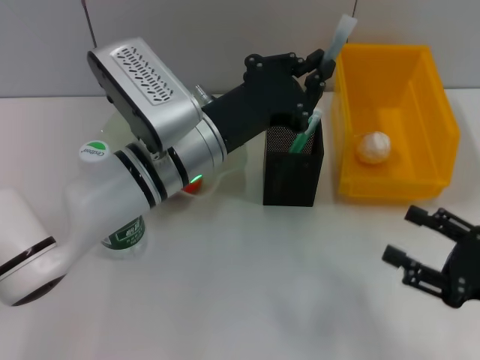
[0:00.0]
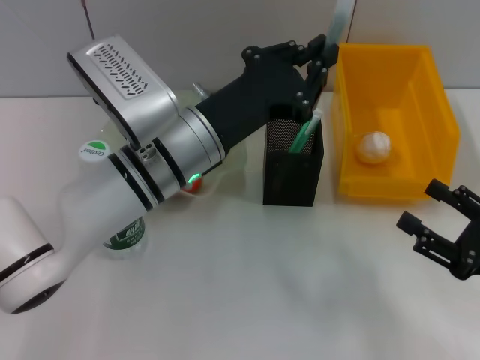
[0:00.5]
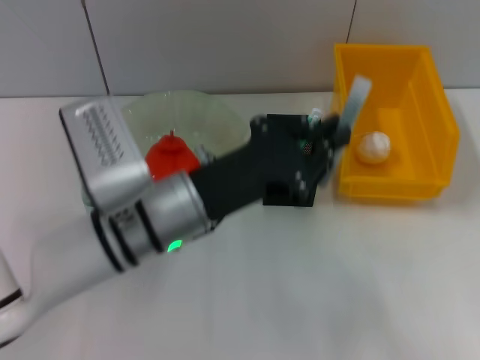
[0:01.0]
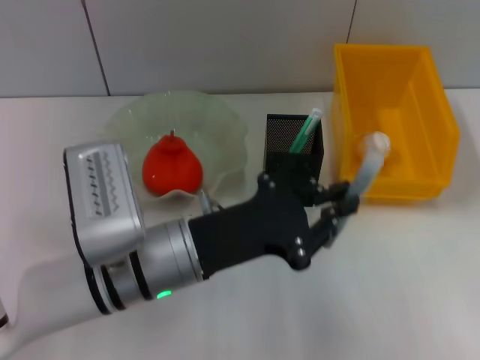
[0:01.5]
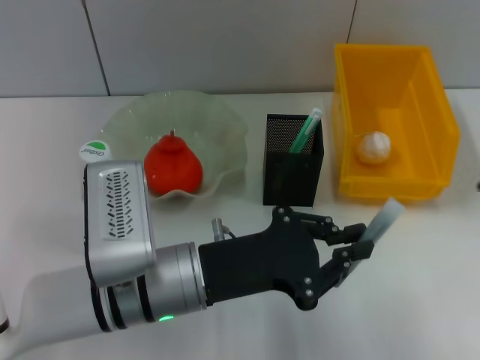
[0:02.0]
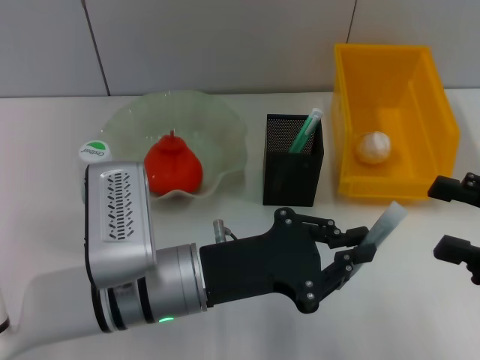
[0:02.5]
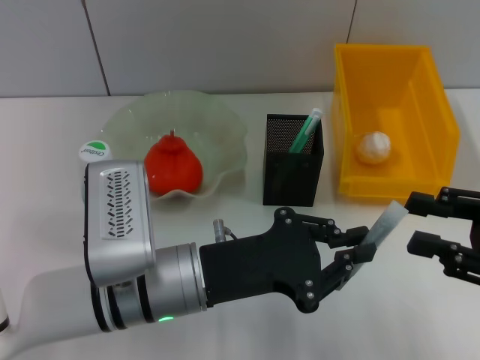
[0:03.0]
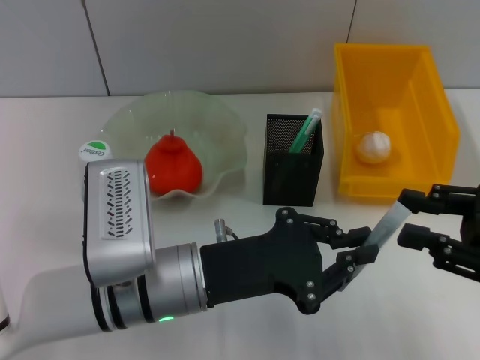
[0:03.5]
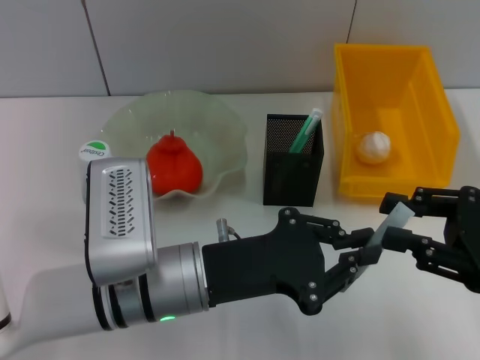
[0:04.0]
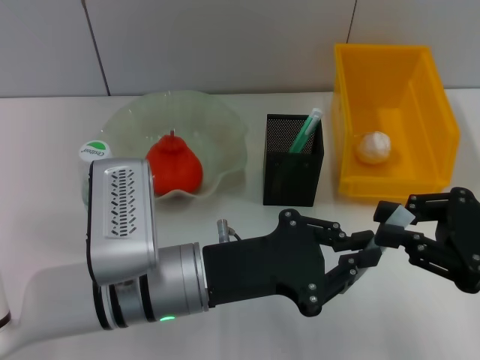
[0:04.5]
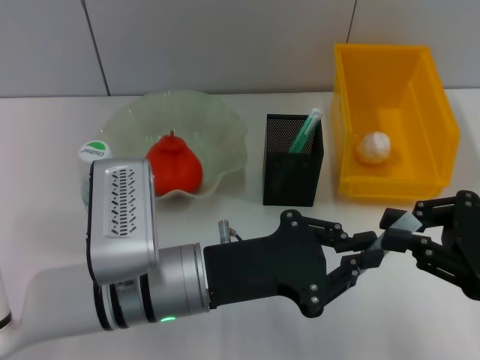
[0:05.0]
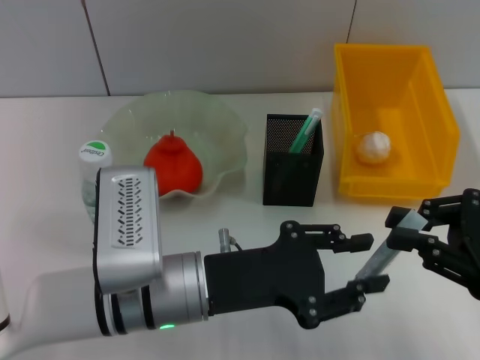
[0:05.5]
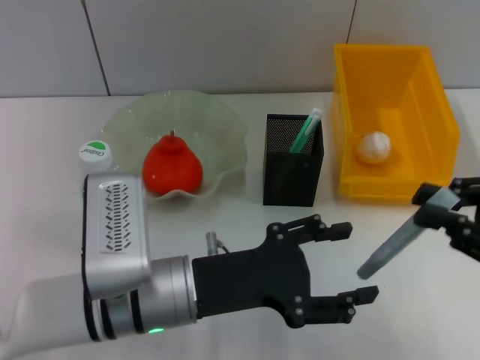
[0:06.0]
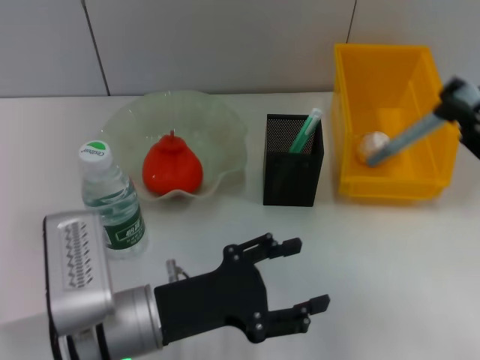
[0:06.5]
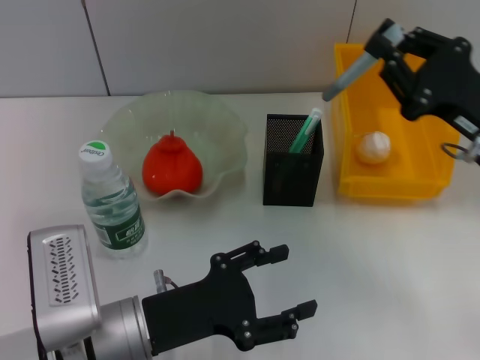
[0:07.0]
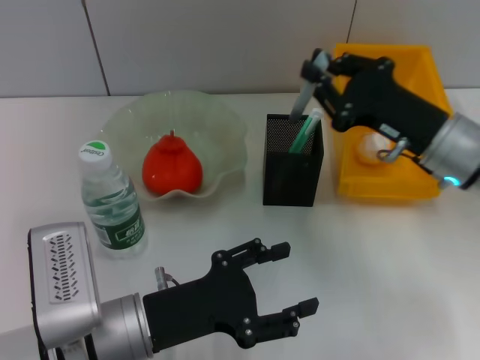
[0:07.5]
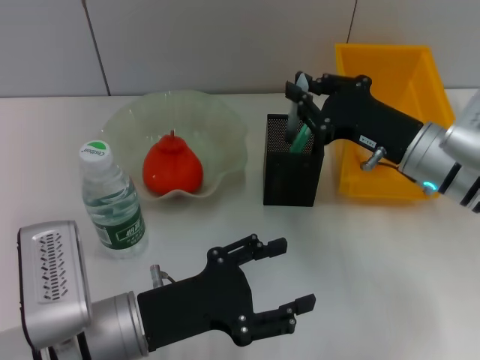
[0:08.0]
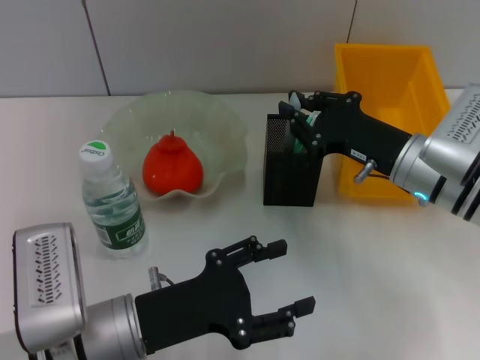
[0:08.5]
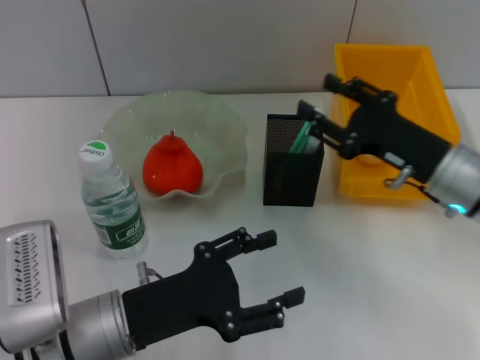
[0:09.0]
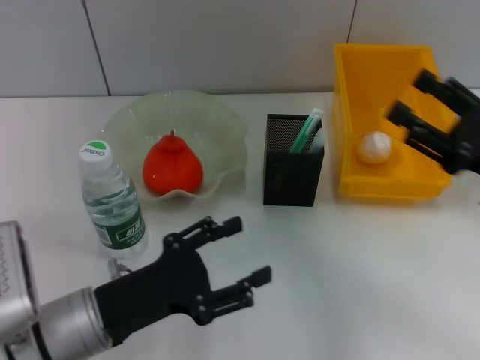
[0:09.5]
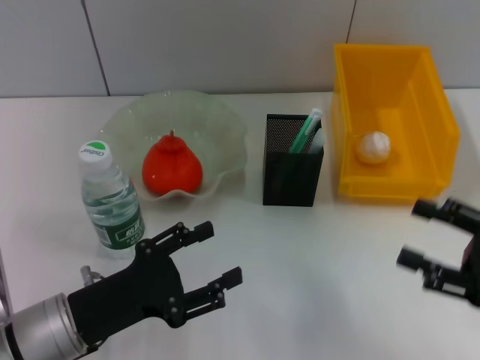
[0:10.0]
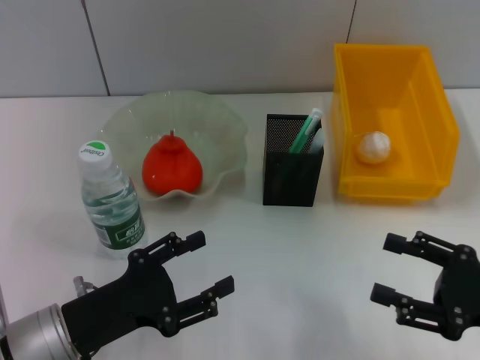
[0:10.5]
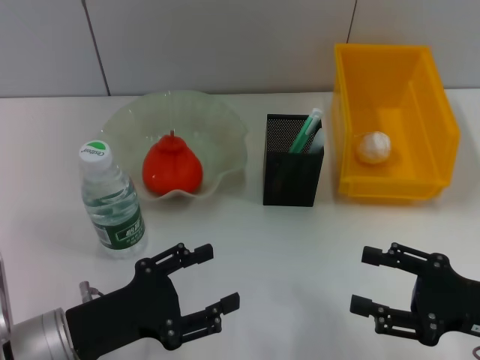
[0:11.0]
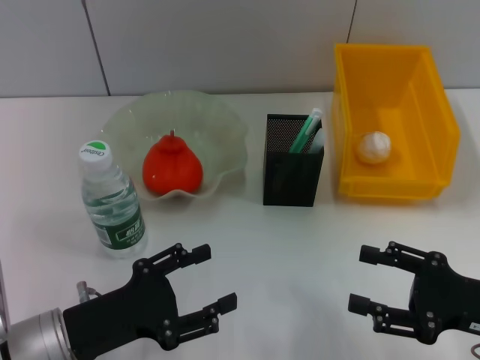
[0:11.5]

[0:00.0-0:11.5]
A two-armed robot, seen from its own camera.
Step, 0:00.0 to 0:05.5: Pass the gray glue from the left hand to the right hand.
Step, 0:06.0 to 0:09.0: Place the gray glue into the pen holder with the right hand.
0:00.0 to 0:02.0: The left gripper travels backward by roughly 10 cm. Meanwhile the right gripper is displaced upward by some 10 cm.
0:02.0 to 0:04.0: The right gripper is displaced to the left by approximately 5 cm, and closes up.
0:04.0 to 0:06.0: The left gripper opens.
0:06.0 to 0:07.5: The right gripper shifts approximately 15 cm forward and to the left; the left gripper ends up roughly 5 cm from where it was.
0:07.5 to 0:09.5: The right gripper goes about 10 cm to the right and backward, and opens.
0:09.5 to 0:11.5: The right gripper is displaced backward and downward by roughly 10 cm.

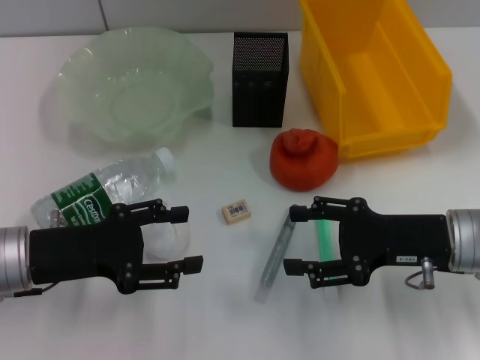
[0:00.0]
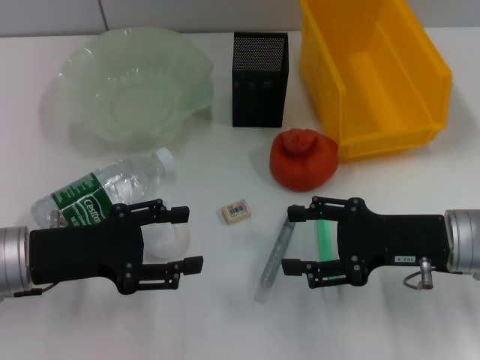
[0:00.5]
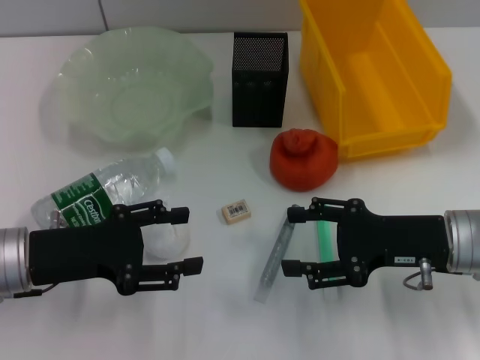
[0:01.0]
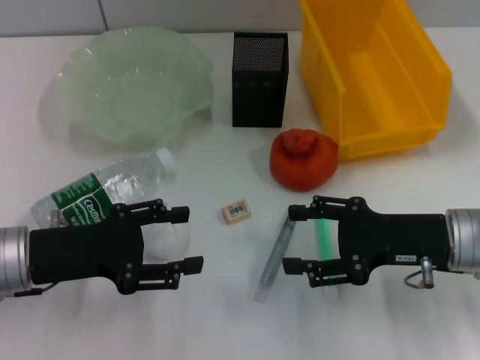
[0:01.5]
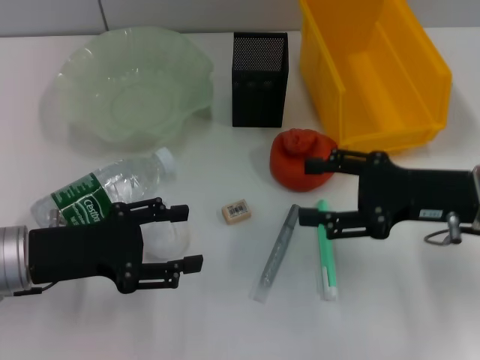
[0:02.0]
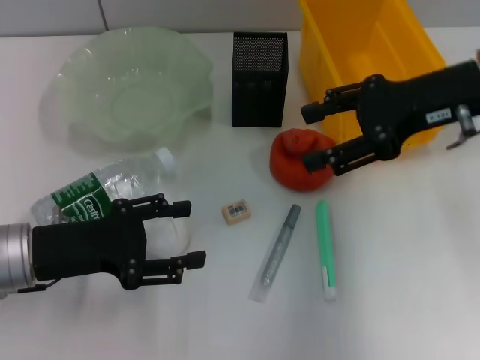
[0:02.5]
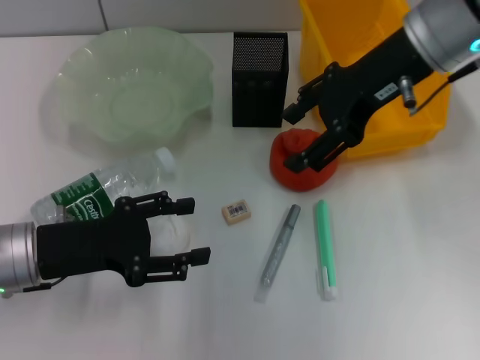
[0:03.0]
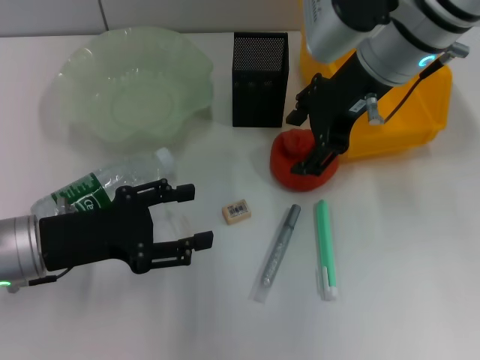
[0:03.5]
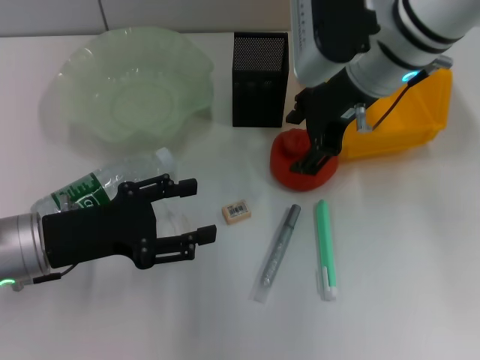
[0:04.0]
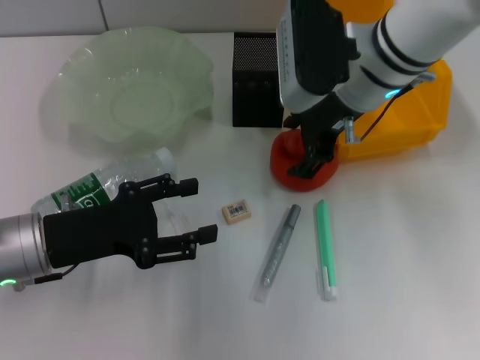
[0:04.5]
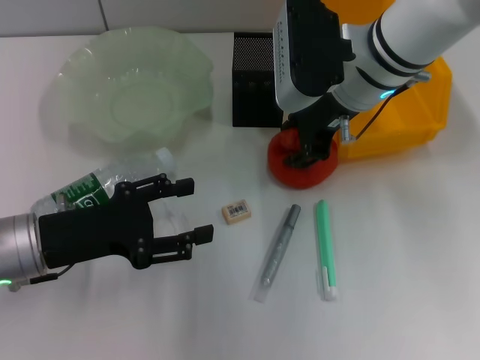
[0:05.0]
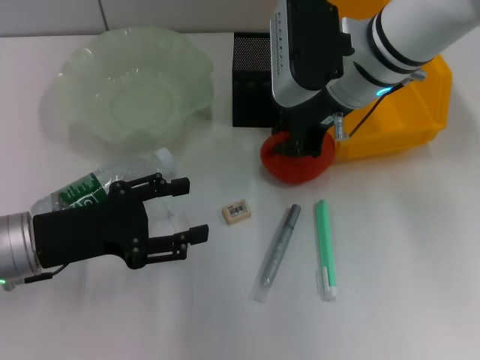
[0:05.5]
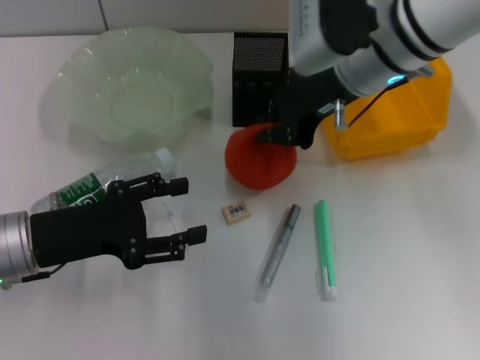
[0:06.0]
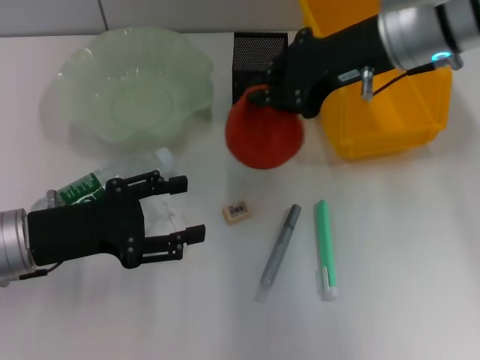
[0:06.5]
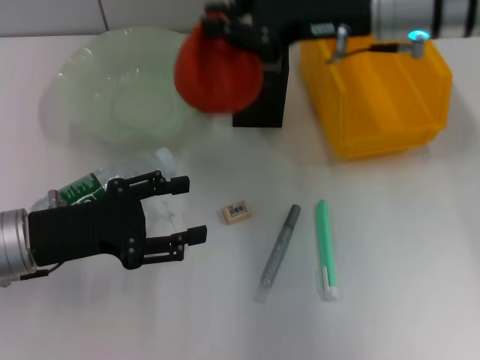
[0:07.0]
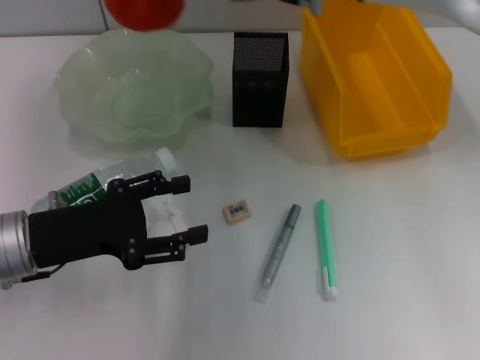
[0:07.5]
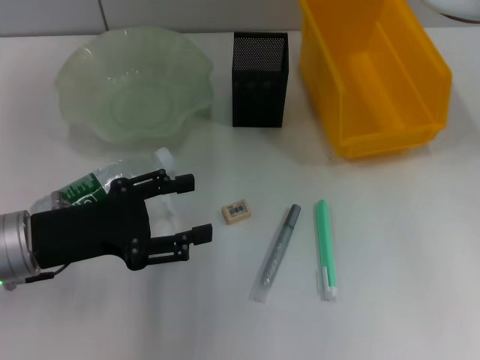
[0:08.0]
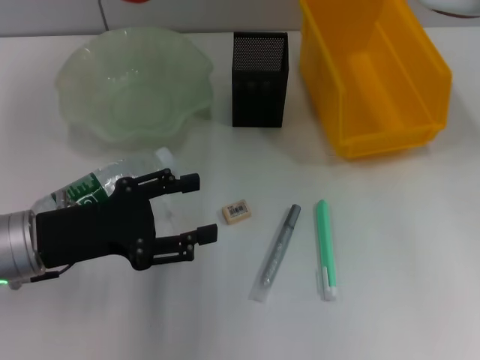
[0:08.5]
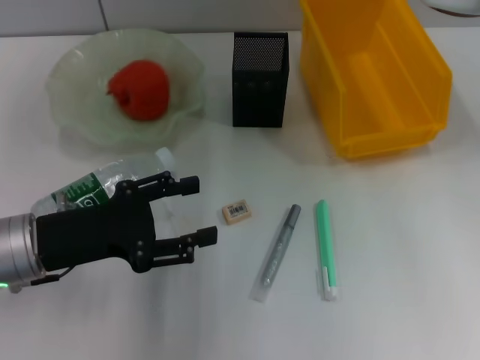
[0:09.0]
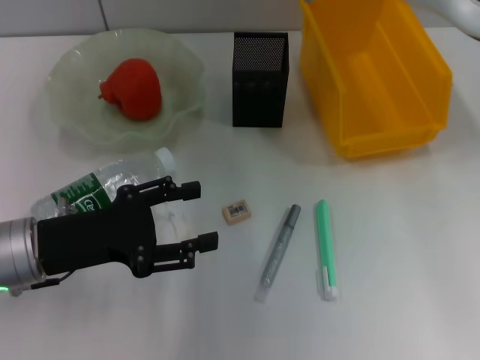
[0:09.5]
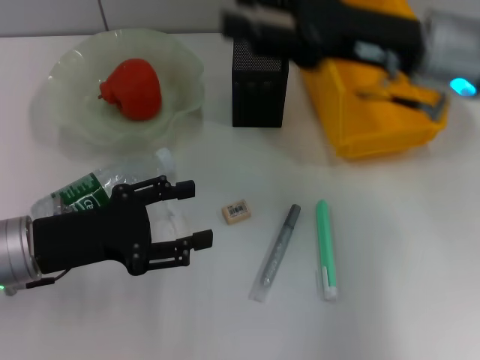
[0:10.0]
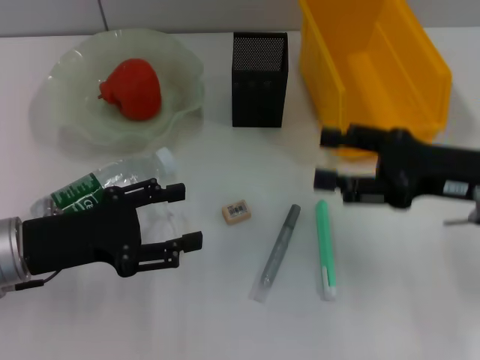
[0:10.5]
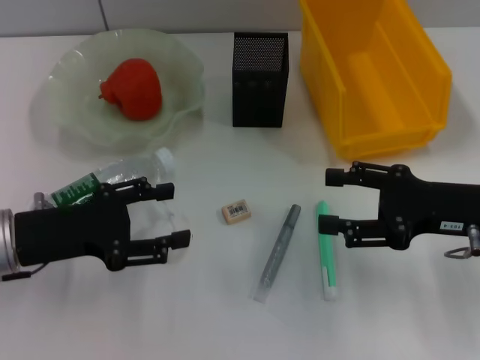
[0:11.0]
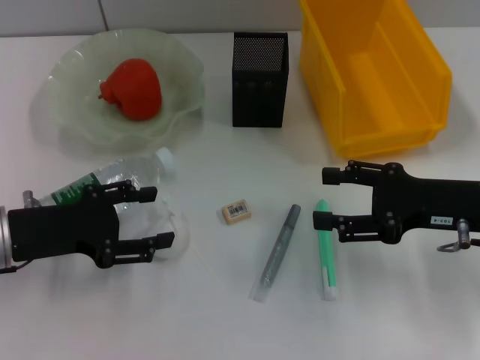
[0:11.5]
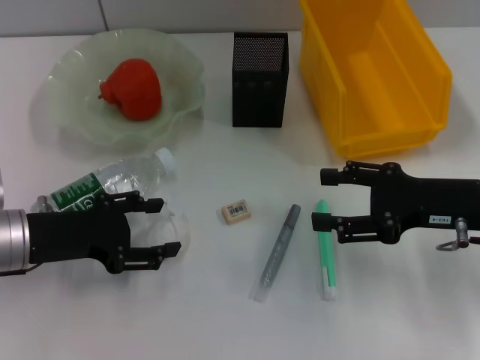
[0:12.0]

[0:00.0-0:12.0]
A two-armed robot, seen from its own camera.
Step, 0:00.0 to 0:05.0: Grab the orange with the right hand.
Step, 0:05.5 to 0:09.0: Place the orange into the fruit bowl with the right hand.
0:00.0 to 0:02.0: The right gripper ends up approximately 5 cm from where it was.
0:02.0 to 0:04.0: The right gripper heads to the left, forward and upward, covering some 20 cm.
0:04.0 to 0:06.0: The right gripper closes its fingers.
0:06.0 to 0:08.0: The right gripper is displaced to the left and forward by approximately 10 cm.
0:08.0 to 0:10.0: The right gripper moves to the right and backward, about 15 cm, and opens up.
0:10.0 to 0:12.0: The right gripper travels downward, to the right and backward by about 15 cm.

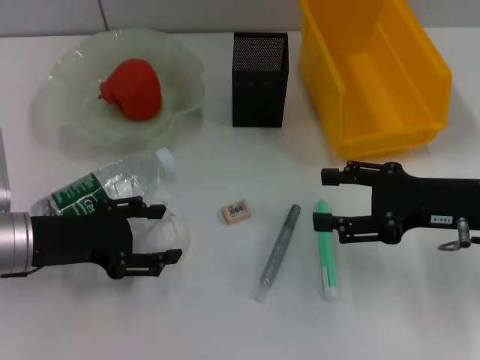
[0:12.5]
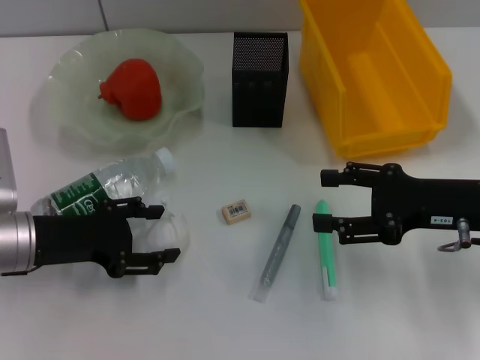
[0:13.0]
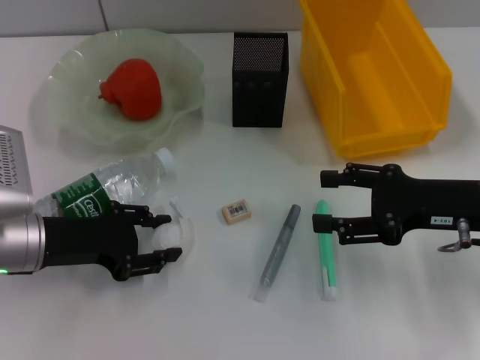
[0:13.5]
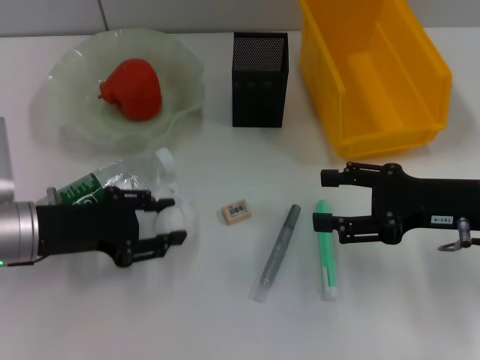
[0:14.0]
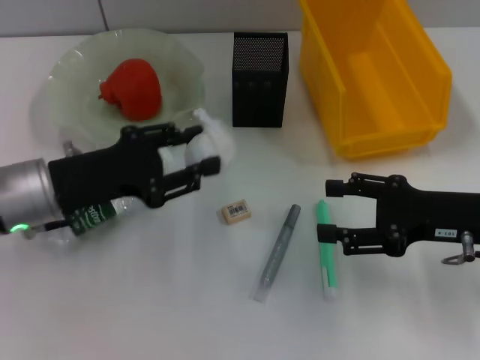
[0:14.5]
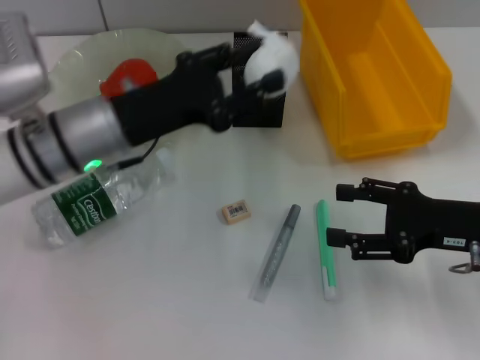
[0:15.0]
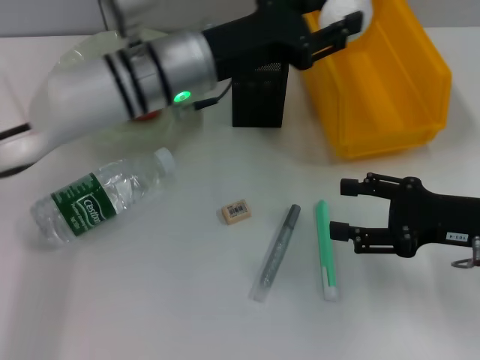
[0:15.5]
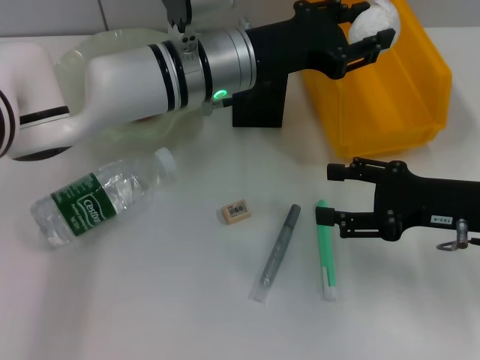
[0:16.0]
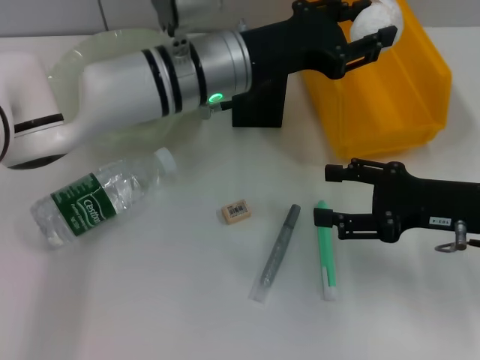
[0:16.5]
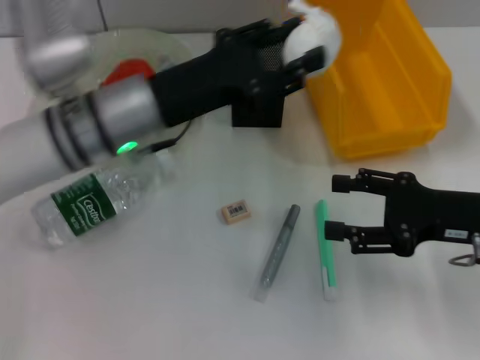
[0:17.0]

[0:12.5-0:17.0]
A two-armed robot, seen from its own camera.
0:12.5 to 0:14.5: The left gripper closes its fingers.
0:14.5 to 0:17.0: The left gripper goes some 10 cm to the right and forward.
